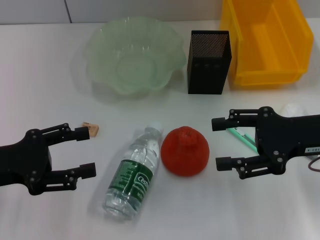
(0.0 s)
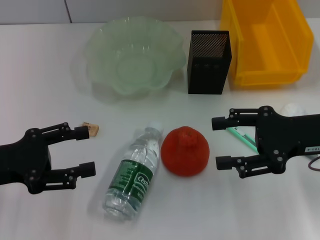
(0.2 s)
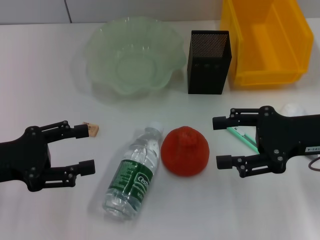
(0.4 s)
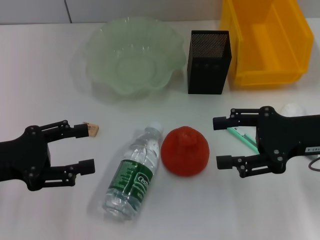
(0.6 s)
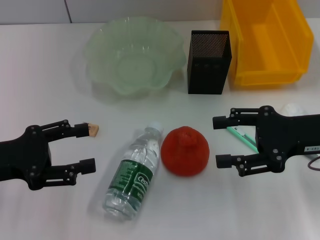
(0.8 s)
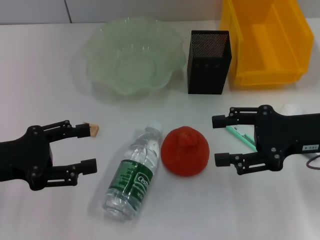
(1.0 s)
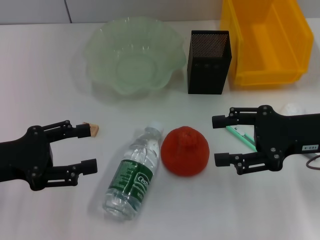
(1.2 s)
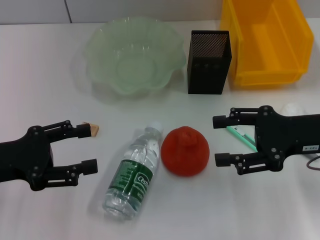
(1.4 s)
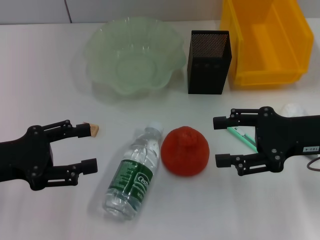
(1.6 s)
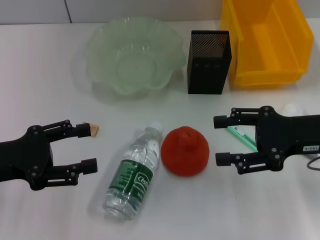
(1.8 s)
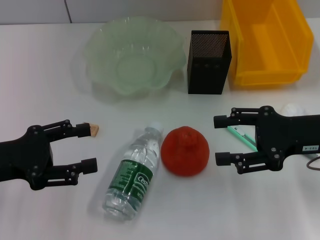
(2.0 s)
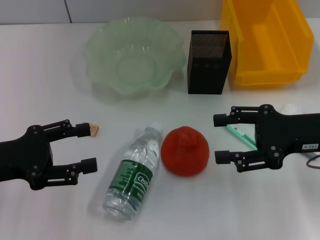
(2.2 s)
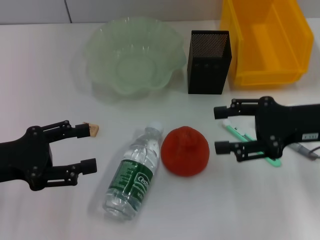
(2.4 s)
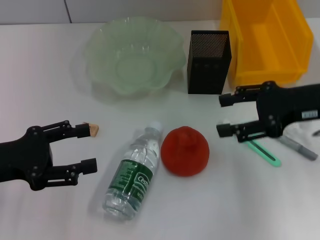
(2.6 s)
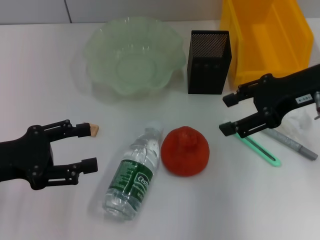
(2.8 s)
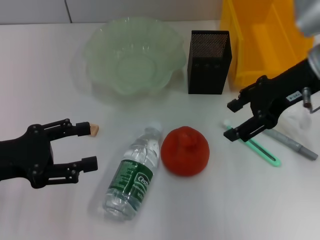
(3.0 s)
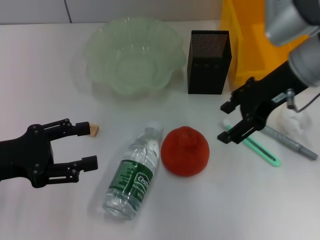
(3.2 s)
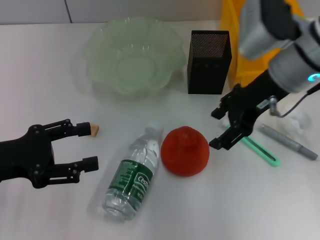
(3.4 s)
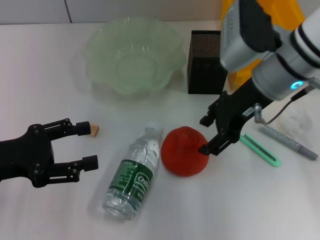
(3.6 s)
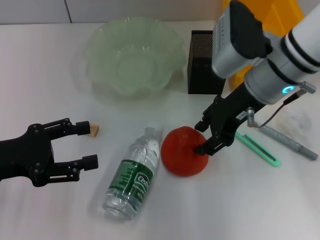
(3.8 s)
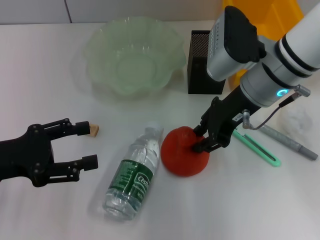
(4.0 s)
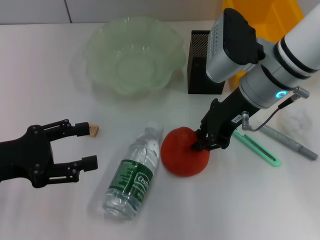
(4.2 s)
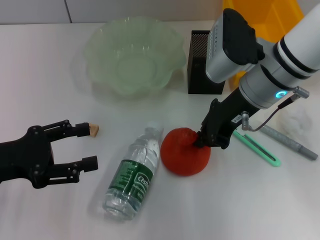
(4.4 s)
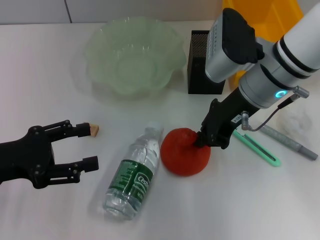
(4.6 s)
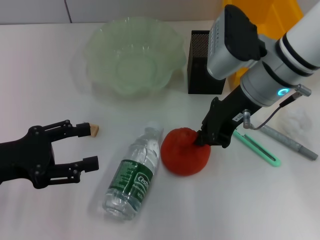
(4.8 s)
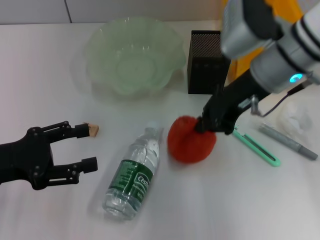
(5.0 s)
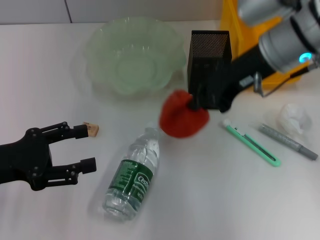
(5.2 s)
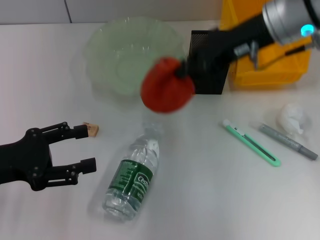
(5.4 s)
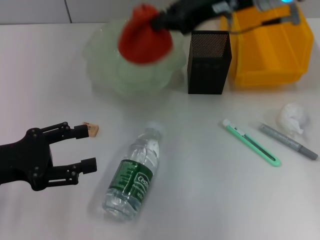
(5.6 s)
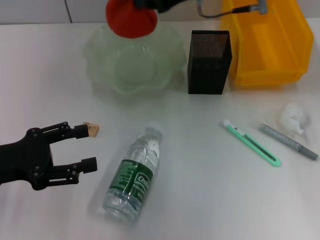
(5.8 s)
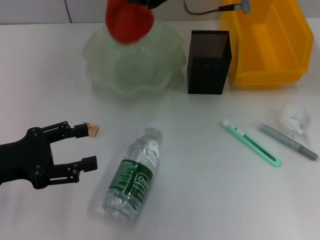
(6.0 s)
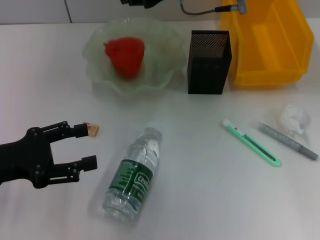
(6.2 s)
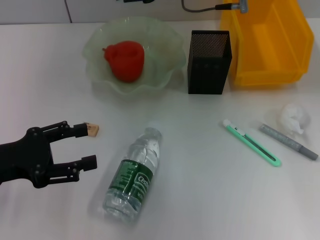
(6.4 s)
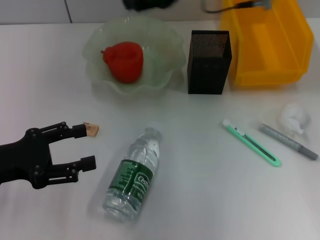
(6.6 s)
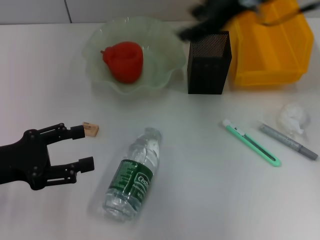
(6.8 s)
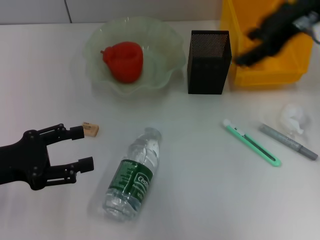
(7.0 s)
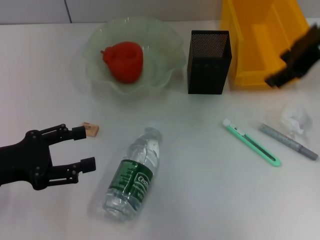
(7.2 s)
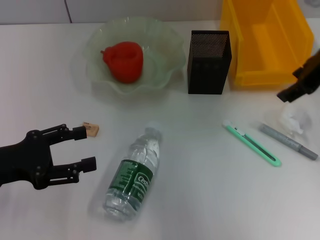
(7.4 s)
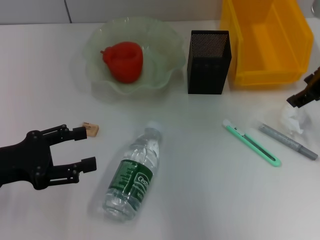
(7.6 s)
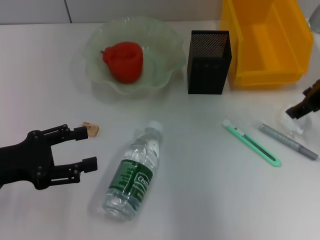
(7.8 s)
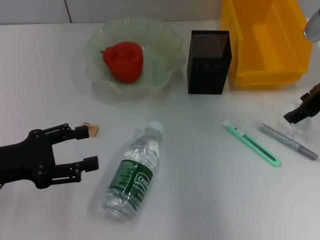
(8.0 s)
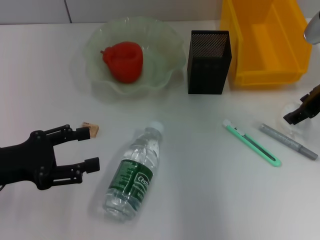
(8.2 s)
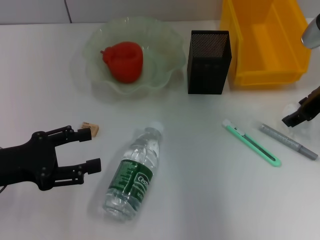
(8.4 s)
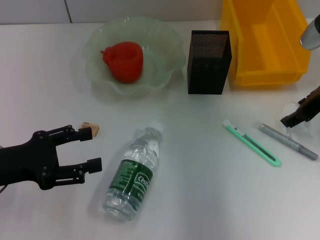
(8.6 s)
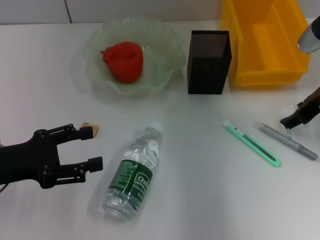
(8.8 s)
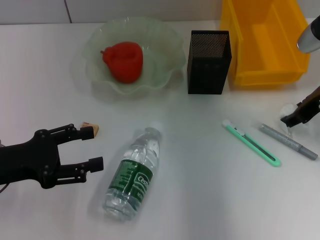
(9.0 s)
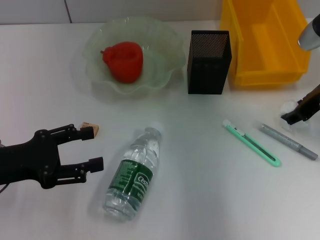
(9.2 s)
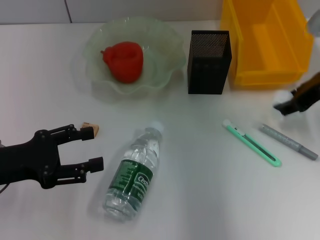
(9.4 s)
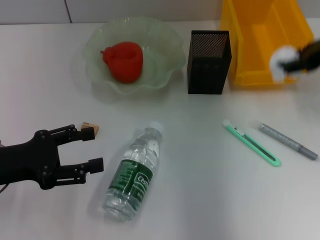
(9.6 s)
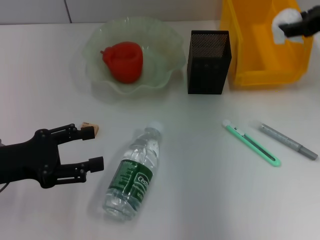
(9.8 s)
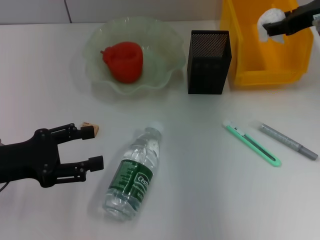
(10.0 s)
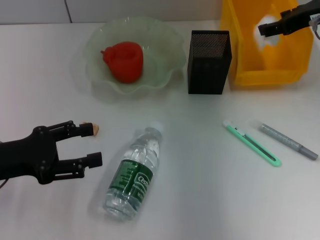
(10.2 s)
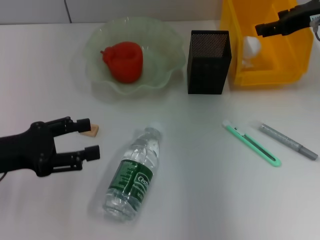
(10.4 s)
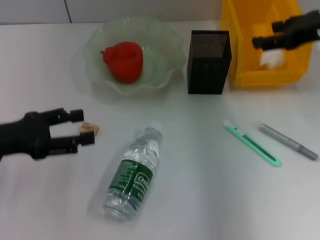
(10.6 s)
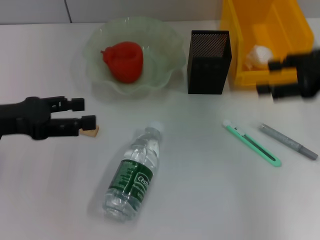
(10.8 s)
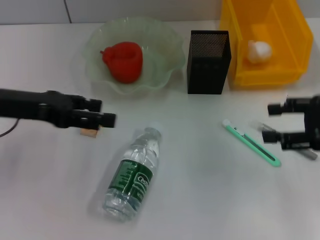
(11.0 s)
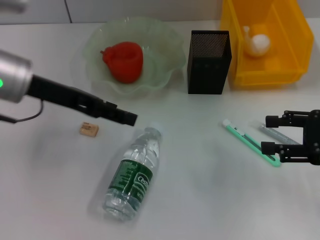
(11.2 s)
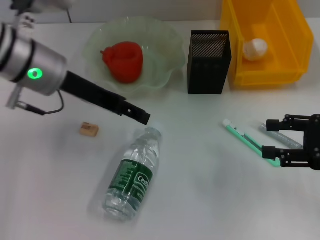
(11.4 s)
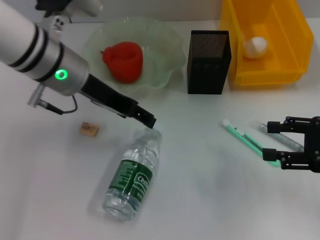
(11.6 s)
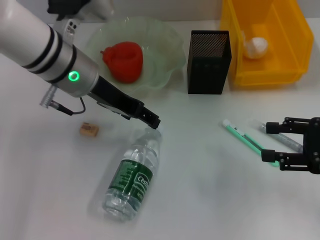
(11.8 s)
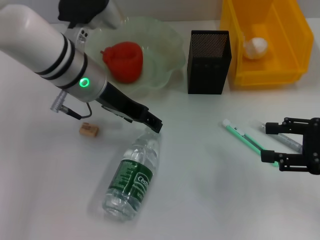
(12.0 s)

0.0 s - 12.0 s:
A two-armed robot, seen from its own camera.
Step, 0.0 s - 4.4 s: Grab the orange with the right hand.
Step, 4.6 s - 6.2 s: Place the orange into the fruit bowl with the right hand.
Step, 6.4 s - 8.8 s: Grab the paper ball with the right hand.
Step, 9.0 s - 10.2 s: Place the paper ball into the trash can with the right hand.
0.0 s - 1.6 s: The two grippers keep their place.
1.6 s - 3.0 s: The right gripper is displaced upward and forward by roughly 10 cm.
3.0 s - 4.4 s: The right gripper shifts roughly 10 cm to the left, and closes.
4.4 s - 6.0 s: The right gripper shifts roughly 10 cm forward and upward.
6.0 s - 7.6 s: The right gripper moves to the right and backward, about 20 cm, and opens its fingers.
7.6 s - 9.0 s: The right gripper moves downward, about 5 cm.
9.0 s - 10.4 s: The right gripper is displaced upward by approximately 5 cm.
10.4 s - 12.0 s: The right gripper travels backward and downward by roughly 20 cm. The left gripper travels to the right and forward by about 20 cm.

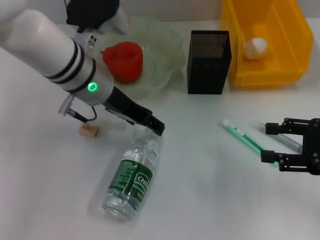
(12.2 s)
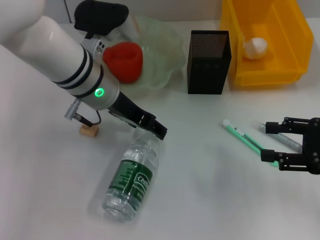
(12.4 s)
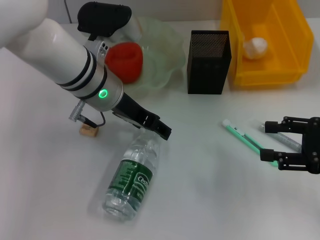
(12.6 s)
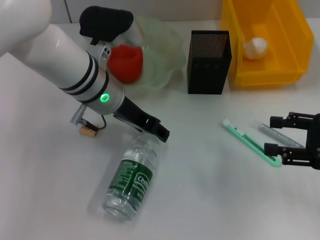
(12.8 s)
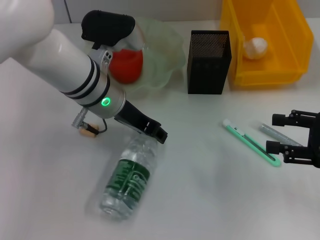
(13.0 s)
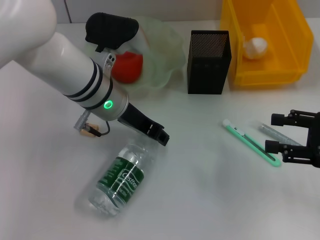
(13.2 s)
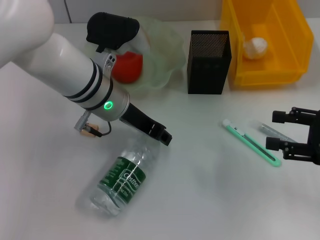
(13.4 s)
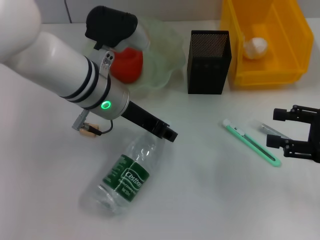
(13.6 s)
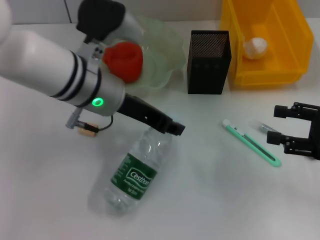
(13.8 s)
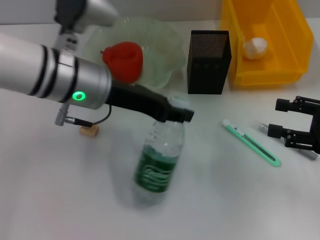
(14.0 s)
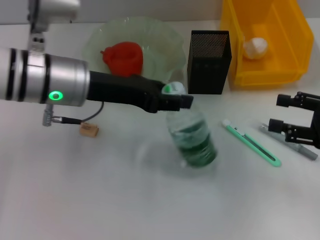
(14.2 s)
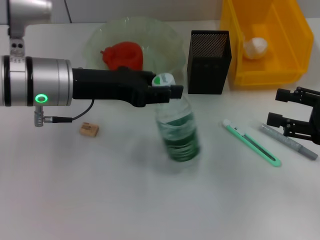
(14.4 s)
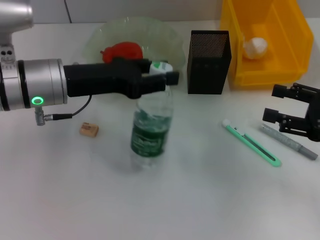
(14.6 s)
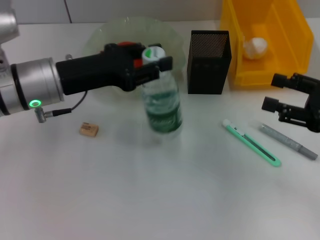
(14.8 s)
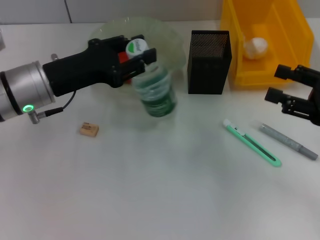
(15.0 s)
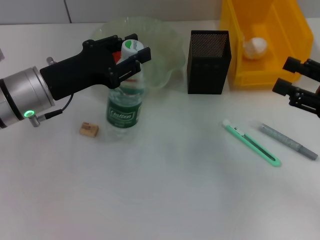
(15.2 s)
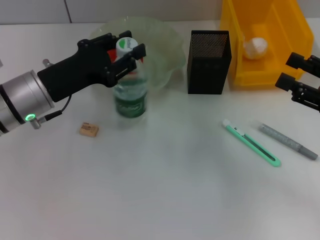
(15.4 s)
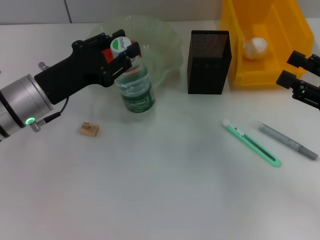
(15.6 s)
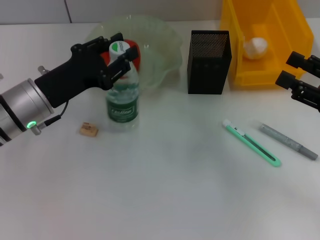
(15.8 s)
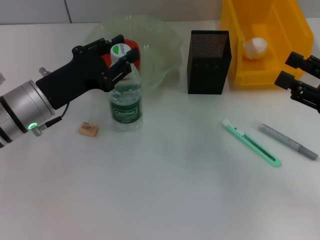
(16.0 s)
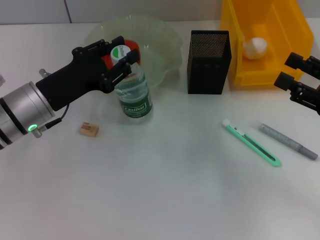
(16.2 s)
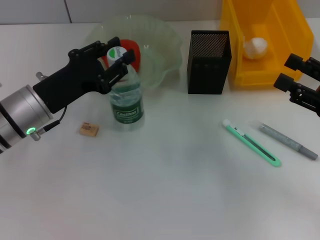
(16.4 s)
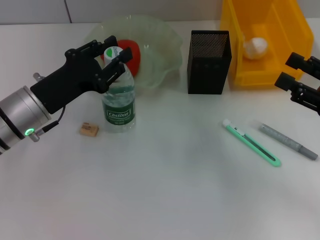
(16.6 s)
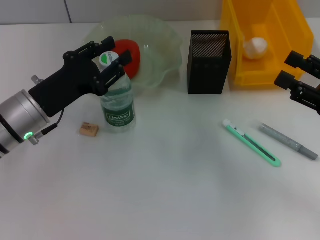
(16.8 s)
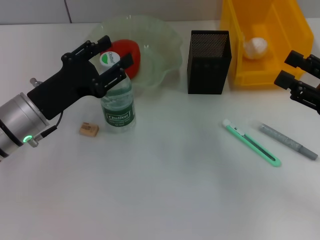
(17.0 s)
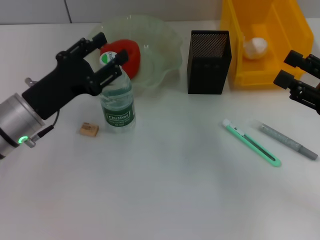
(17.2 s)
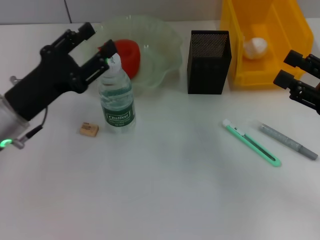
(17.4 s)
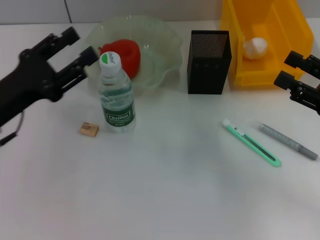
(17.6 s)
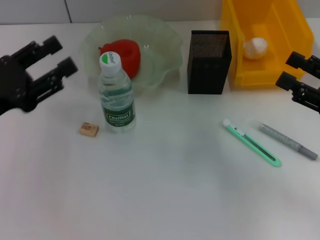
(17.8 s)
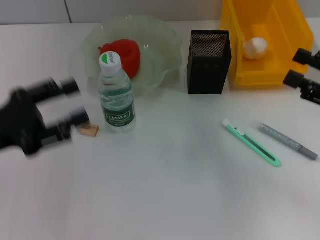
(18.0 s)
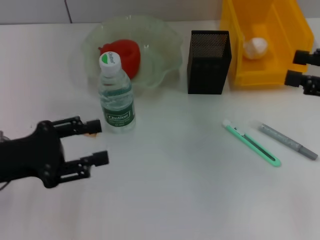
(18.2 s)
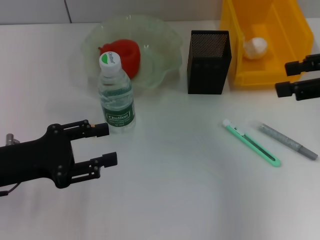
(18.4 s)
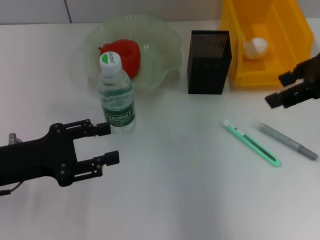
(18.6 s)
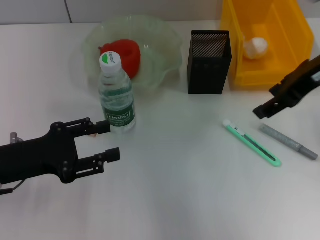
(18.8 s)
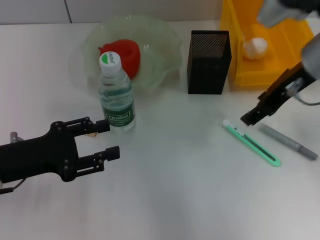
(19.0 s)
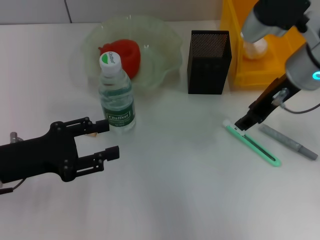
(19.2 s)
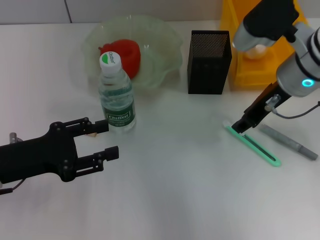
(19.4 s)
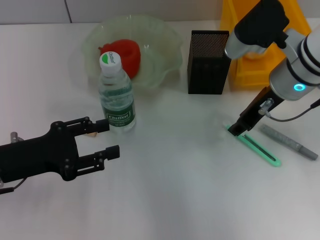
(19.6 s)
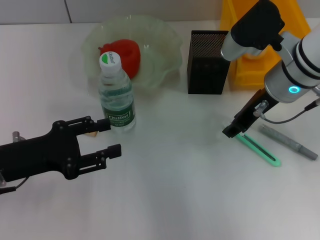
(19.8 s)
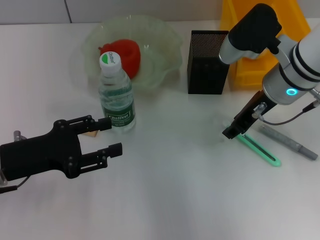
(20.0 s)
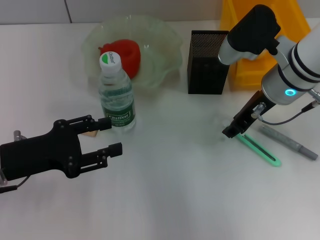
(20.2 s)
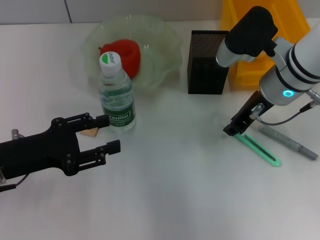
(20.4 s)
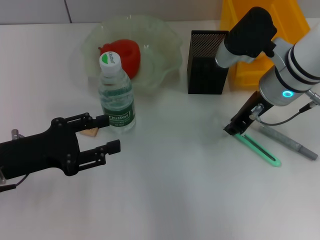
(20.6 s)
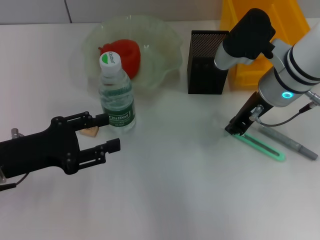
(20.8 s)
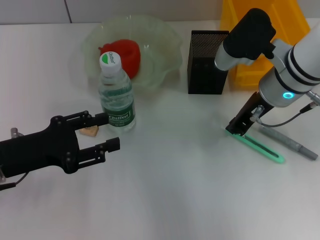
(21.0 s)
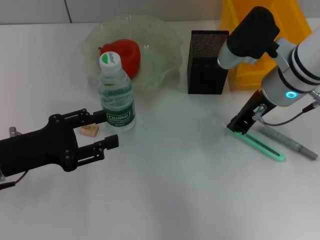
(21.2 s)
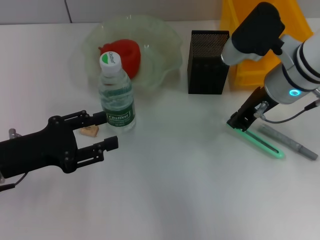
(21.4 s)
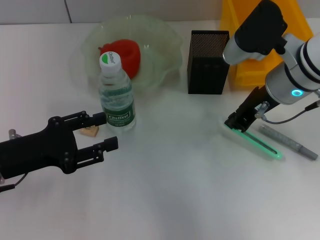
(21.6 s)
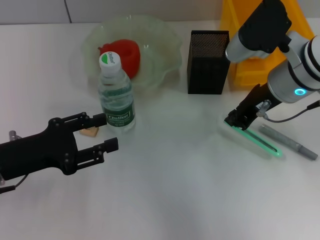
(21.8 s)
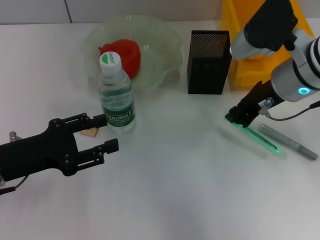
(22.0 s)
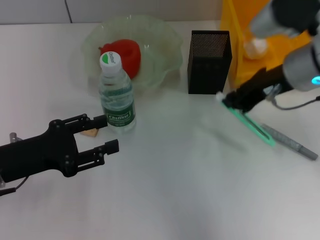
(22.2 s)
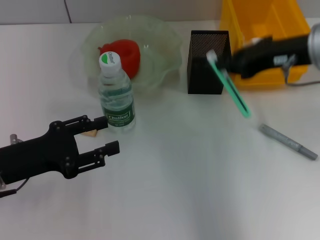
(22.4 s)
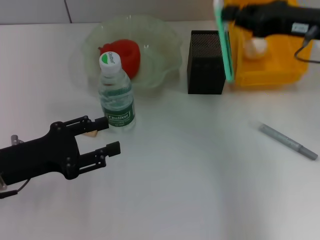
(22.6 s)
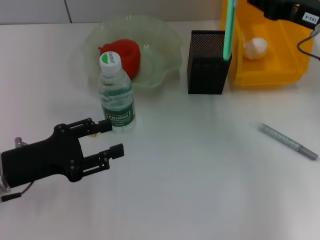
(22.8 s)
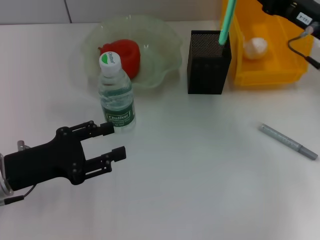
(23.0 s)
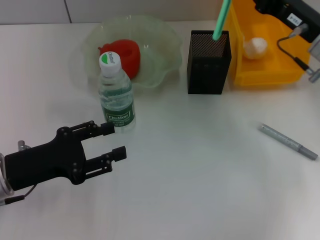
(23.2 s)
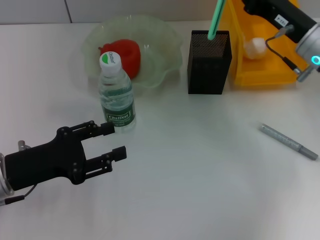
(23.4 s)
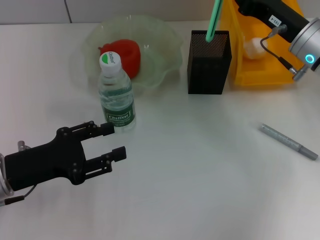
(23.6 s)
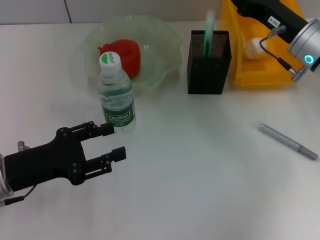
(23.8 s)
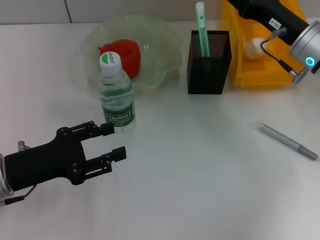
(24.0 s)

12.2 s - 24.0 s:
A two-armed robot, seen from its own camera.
Step, 13.0 s - 16.8 s: Place the water bottle on the table with the left hand.
Step, 17.0 s - 20.8 s: Grab the blue utility knife with the right hand.
12.2 s - 13.6 s: The left gripper closes.
13.6 s - 15.2 s: The left gripper is displaced to the left by approximately 10 cm.
15.2 s - 16.6 s: The grippers make only small movements.
16.6 s - 18.2 s: The left gripper travels backward and to the left by some 10 cm, and opens its fingers; the right gripper goes roughly 5 cm upward.
18.2 s - 19.6 s: The right gripper heads to the left and forward, covering approximately 20 cm.
19.6 s - 21.0 s: The right gripper closes up.
21.0 s - 22.6 s: The right gripper goes roughly 10 cm to the right and upward.
22.6 s - 24.0 s: The right gripper goes roughly 10 cm downward.
